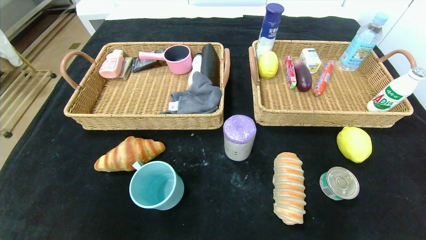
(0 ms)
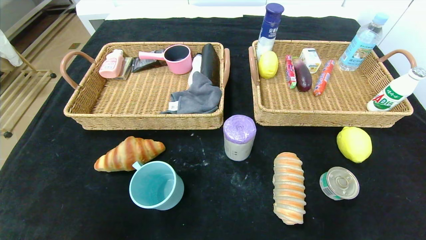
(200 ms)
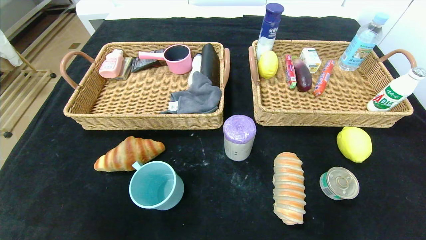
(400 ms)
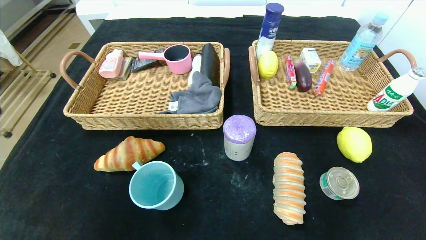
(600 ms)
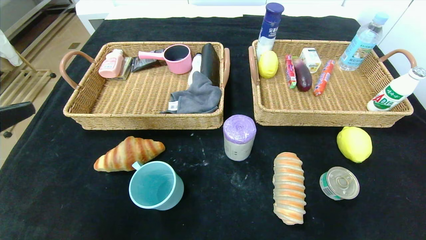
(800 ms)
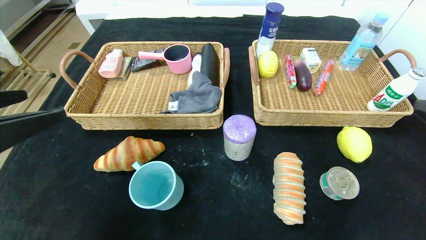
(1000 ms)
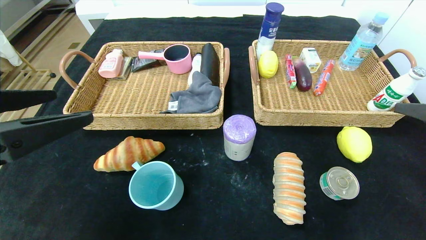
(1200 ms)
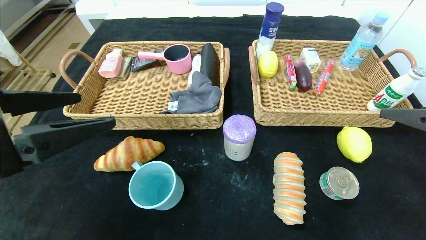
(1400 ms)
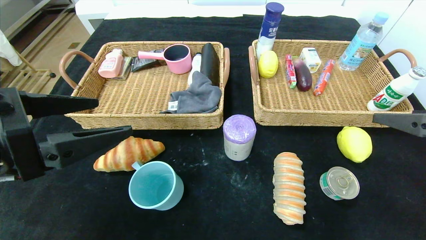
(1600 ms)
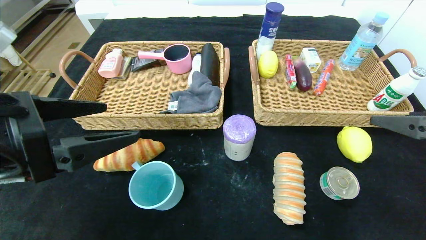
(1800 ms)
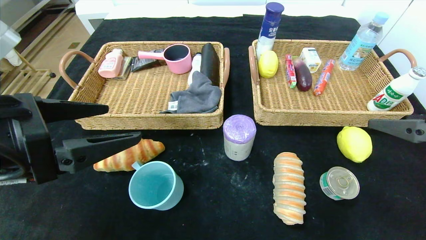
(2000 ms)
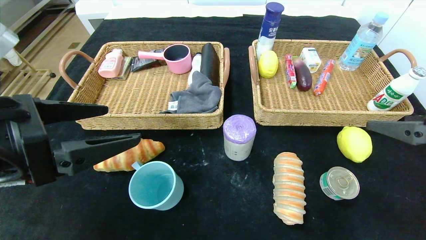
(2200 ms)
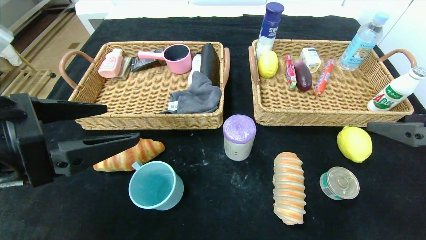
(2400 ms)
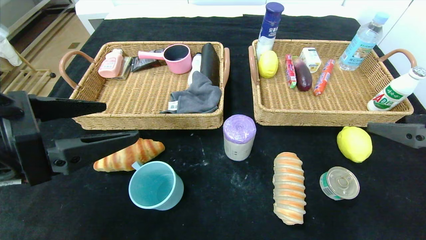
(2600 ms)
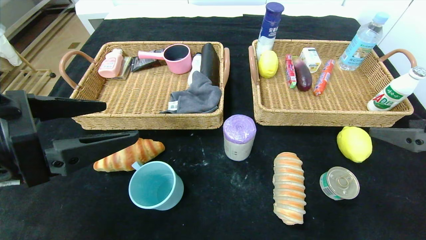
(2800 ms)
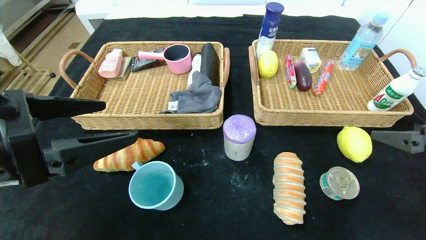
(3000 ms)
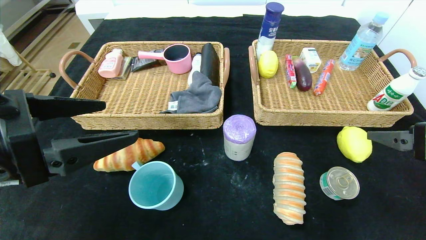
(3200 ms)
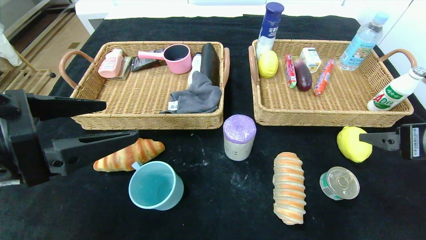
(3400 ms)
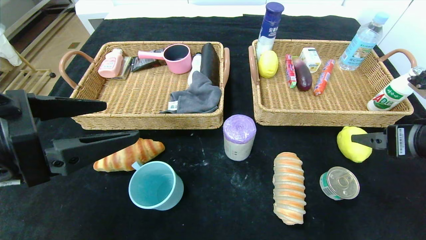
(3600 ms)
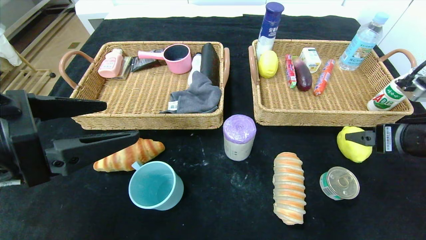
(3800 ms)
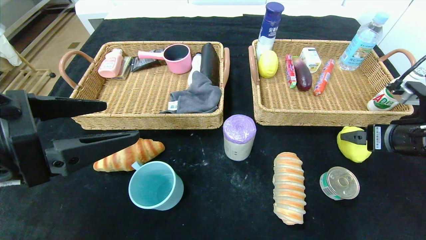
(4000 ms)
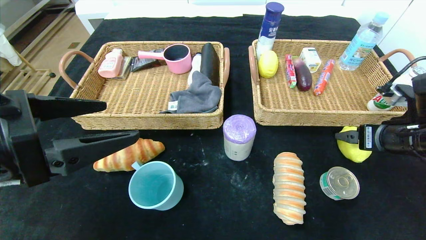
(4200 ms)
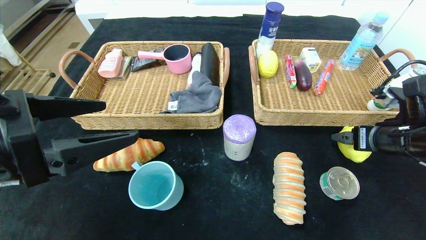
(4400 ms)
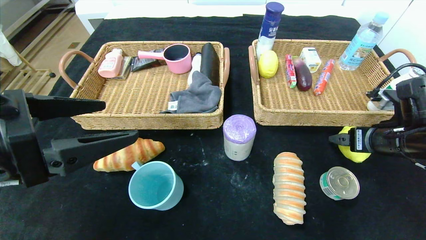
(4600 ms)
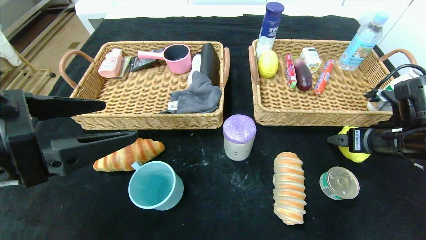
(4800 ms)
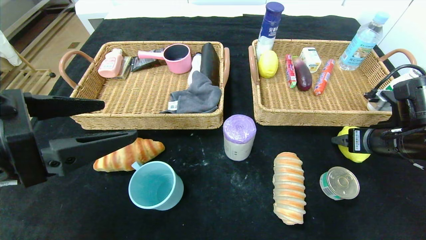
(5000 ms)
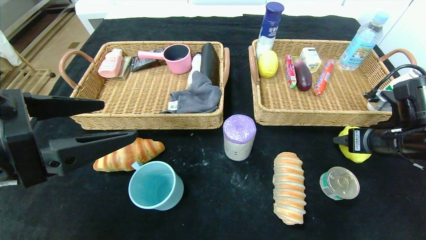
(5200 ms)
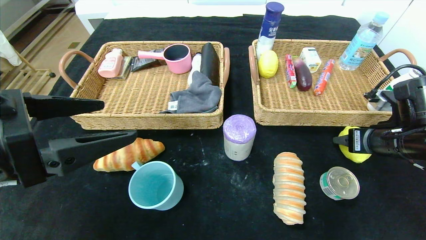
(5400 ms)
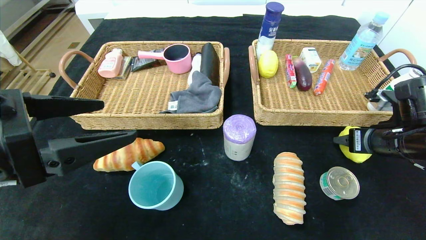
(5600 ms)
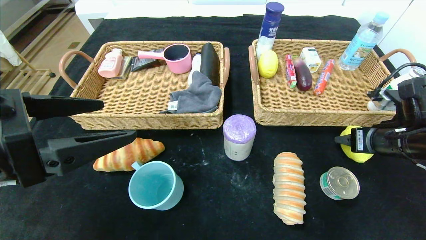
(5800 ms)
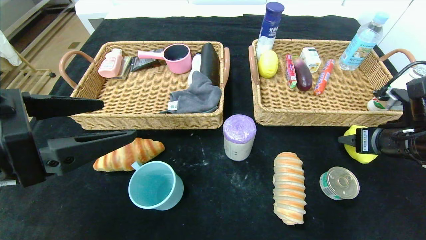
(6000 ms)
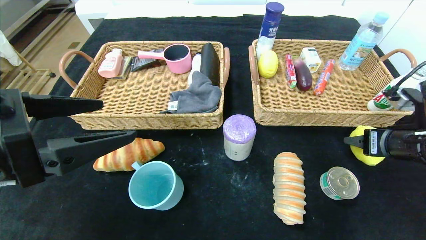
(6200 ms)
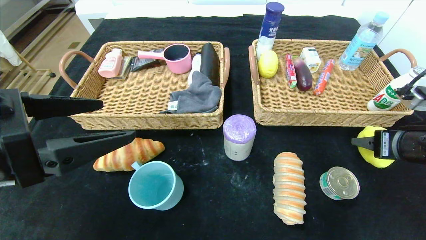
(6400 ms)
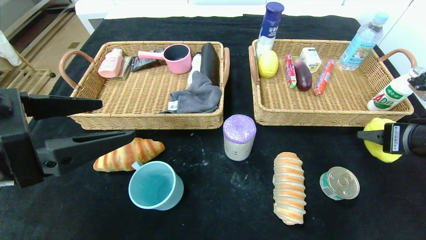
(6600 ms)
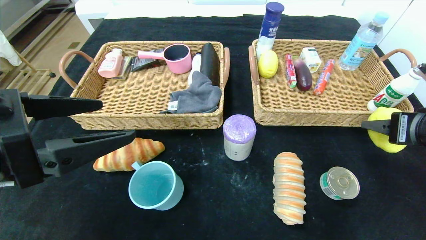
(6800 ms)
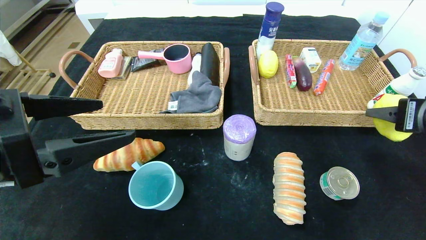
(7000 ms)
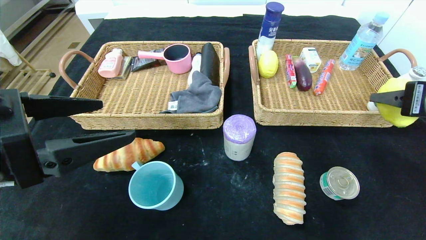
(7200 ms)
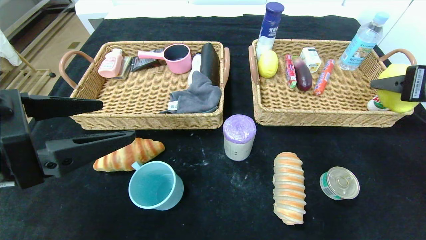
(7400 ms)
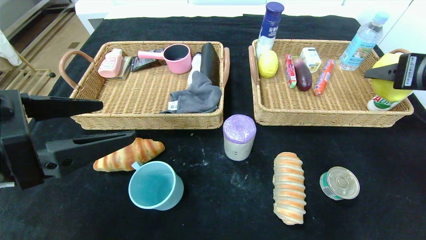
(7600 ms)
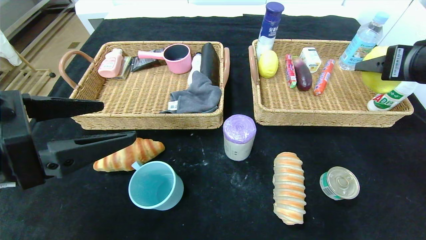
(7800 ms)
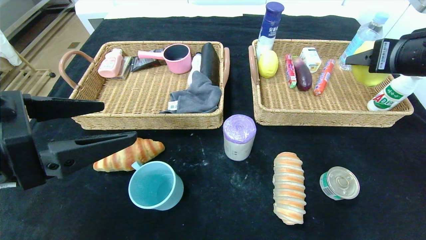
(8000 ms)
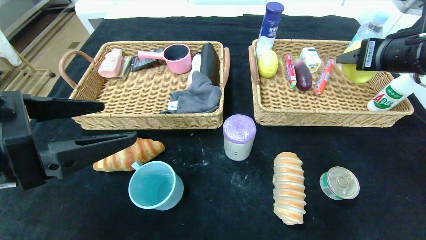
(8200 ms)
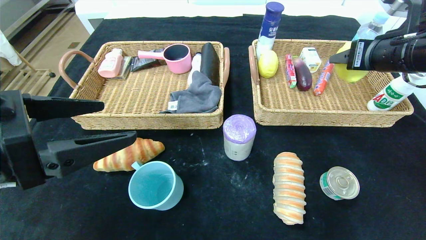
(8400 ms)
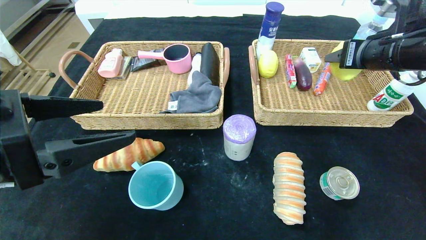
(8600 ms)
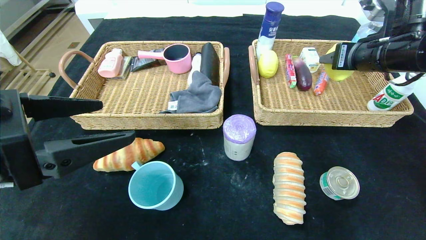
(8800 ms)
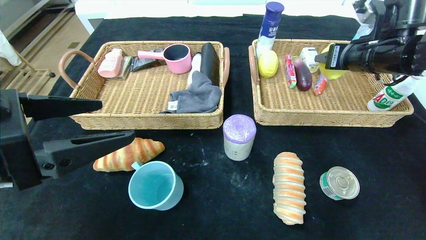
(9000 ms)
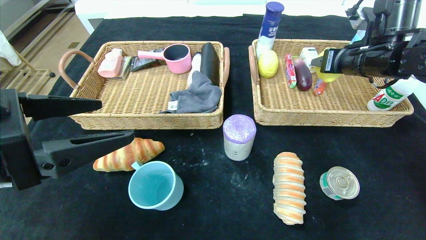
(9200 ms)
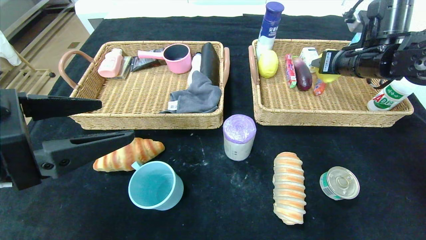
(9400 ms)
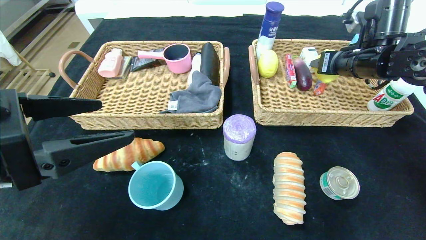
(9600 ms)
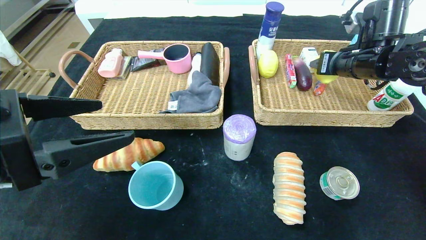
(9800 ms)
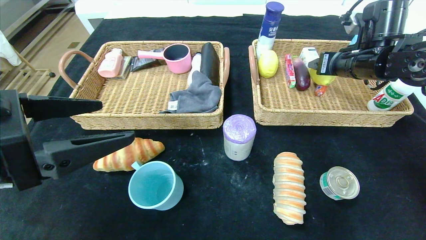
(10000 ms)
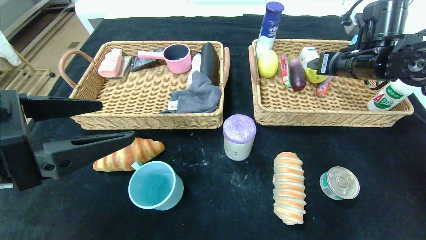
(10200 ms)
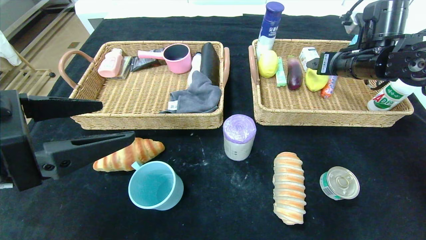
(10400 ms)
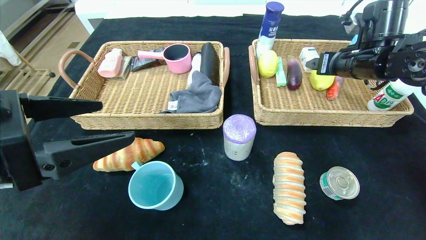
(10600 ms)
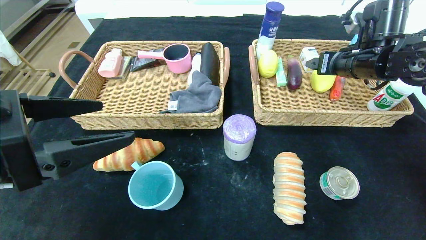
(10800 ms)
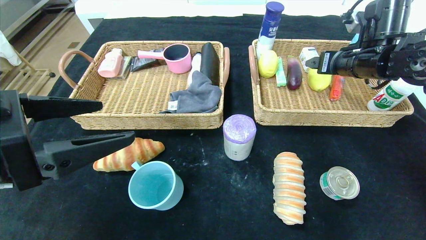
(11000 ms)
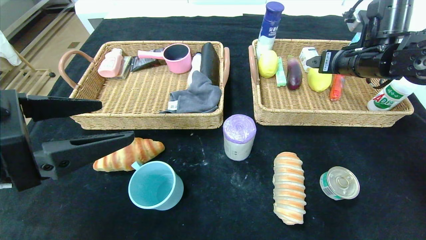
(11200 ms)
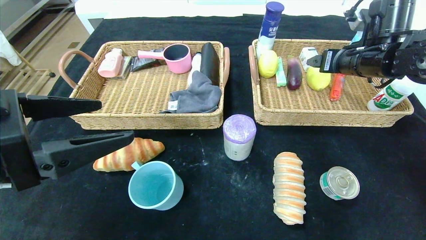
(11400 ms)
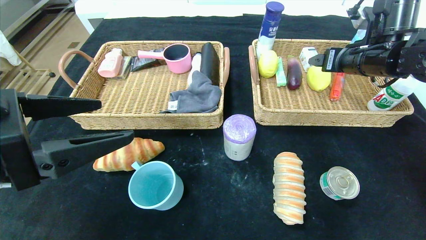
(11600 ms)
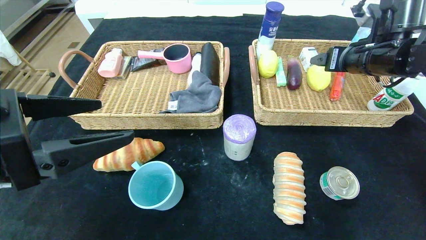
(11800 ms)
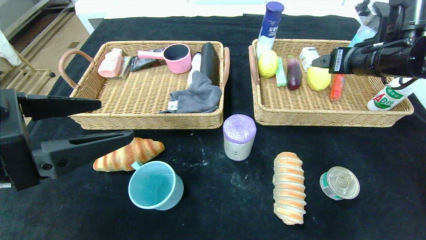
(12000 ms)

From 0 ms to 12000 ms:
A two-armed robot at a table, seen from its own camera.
Step, from 0 ms to 10200 ms: Grasp the lemon and put it in the right basket.
From 0 ms to 1600 ms: The left gripper travels forward and upward by approximately 15 cm, while the right gripper is displaced forward by about 15 cm.
From 1600 ms to 3000 ms: There are only small adjustments of the grippers.
From 3000 ms to 4400 ms: The right gripper moves forward and downward, approximately 10 cm.
From 4400 ms to 6000 ms: The right gripper closes up.
From 6000 ms to 7600 ms: The right gripper heads upward, covering some 10 cm.
From 7600 ms to 9000 ms: The right gripper heads forward, covering about 15 cm.
From 9000 ms to 10400 ms: The grippers move only a little.
From 10400 ms to 12000 ms: The right gripper changes place by about 5 cm.

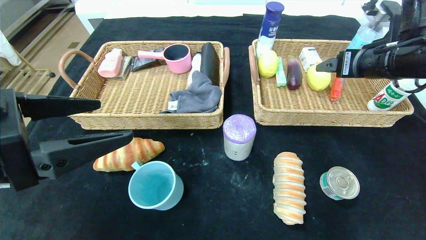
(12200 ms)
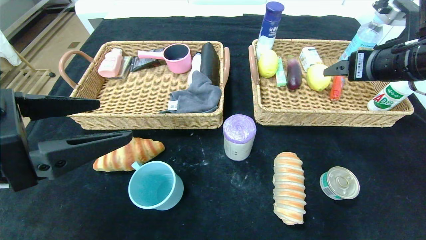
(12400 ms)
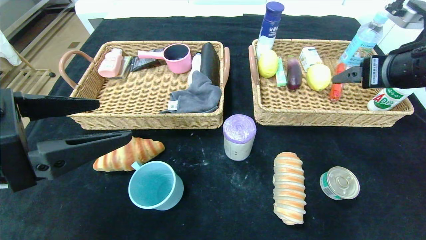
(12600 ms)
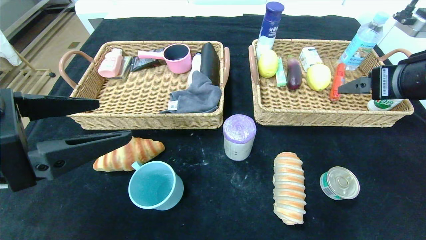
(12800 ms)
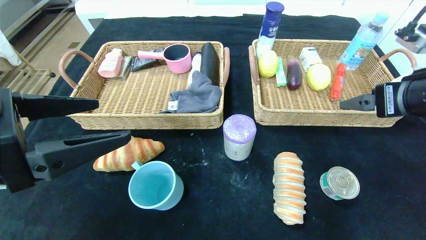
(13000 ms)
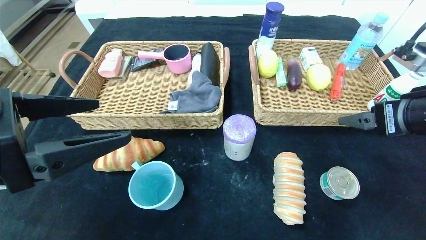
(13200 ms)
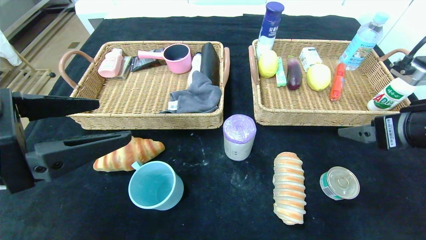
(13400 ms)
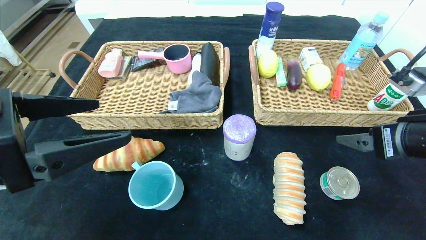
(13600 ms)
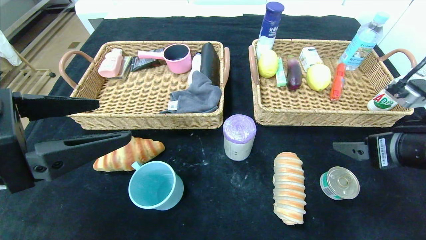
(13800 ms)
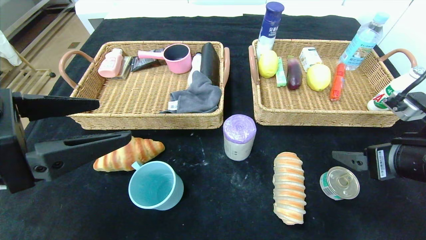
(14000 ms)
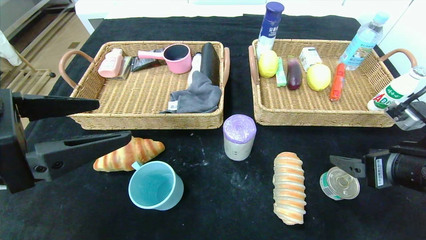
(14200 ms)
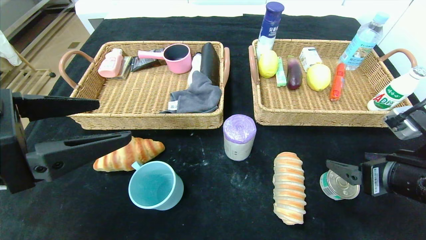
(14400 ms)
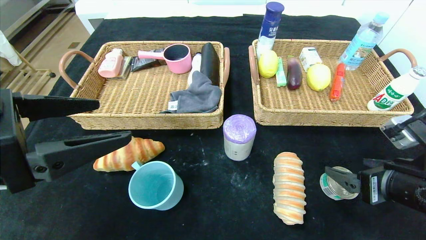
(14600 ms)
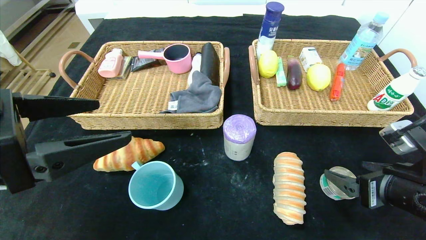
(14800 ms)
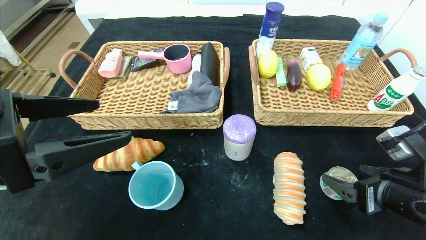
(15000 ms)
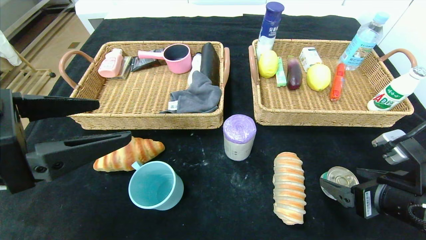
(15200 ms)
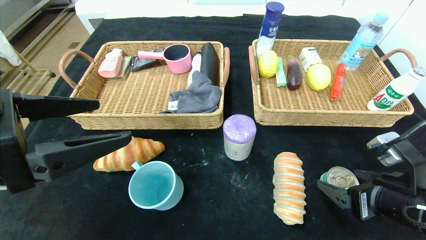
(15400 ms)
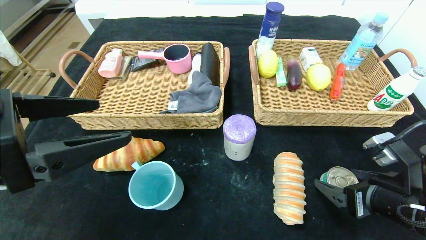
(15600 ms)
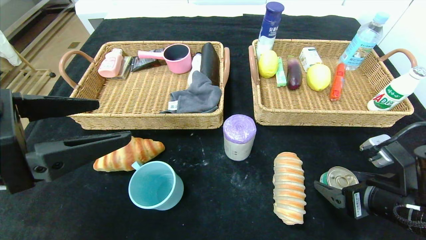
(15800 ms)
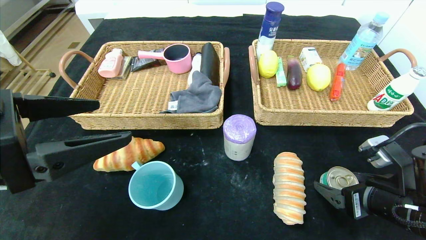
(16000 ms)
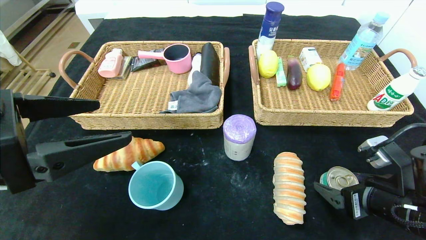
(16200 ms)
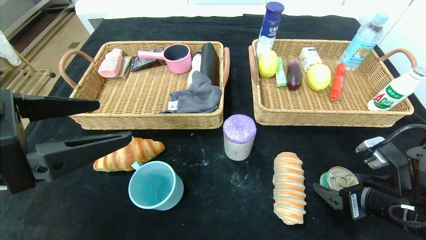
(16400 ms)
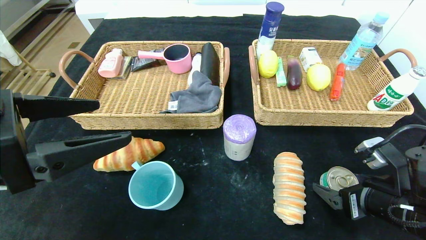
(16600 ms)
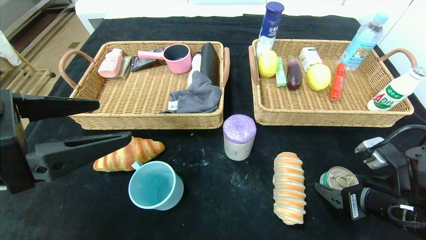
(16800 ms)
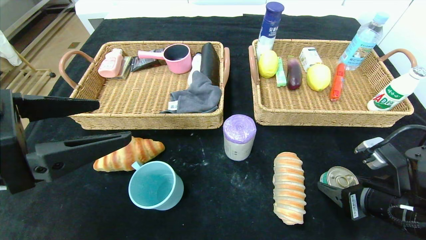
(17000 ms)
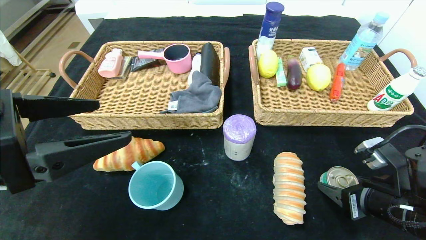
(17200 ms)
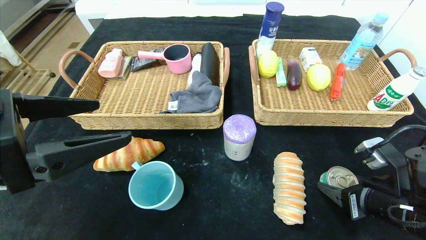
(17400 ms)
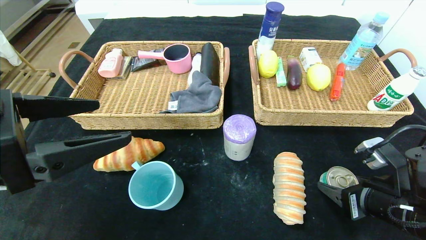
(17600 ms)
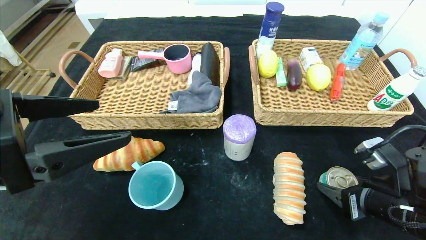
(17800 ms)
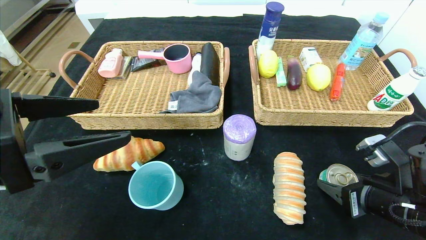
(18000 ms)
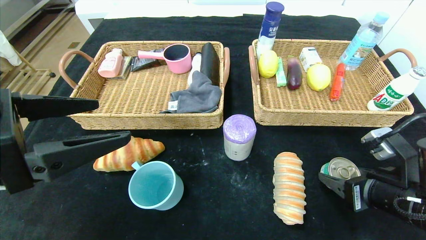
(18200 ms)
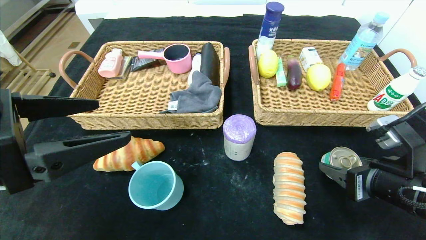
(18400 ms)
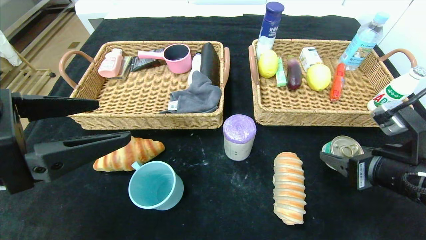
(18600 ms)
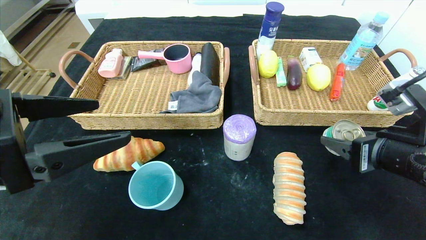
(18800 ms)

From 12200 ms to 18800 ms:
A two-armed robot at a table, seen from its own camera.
From 12200 ms to 13800 ms: The right gripper goes about 15 cm backward and downward.
From 13800 ms to 15400 ms: The right gripper travels downward by roughly 10 cm.
From 15400 ms to 17200 ms: The right gripper closes its fingers.
From 17200 ms to 18800 ms: The right gripper heads upward, covering approximately 10 cm.
